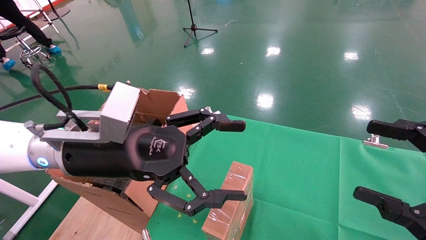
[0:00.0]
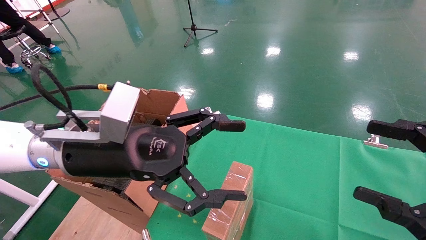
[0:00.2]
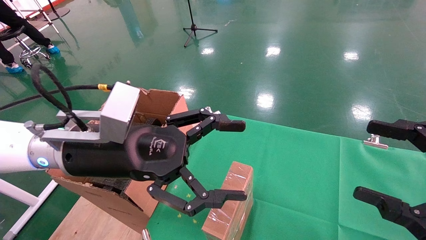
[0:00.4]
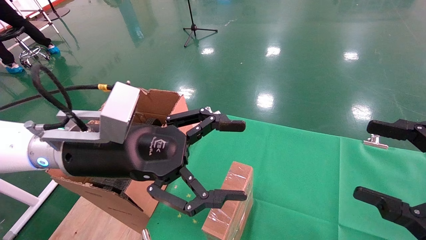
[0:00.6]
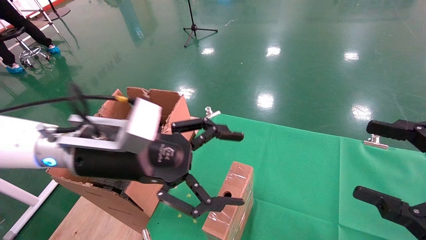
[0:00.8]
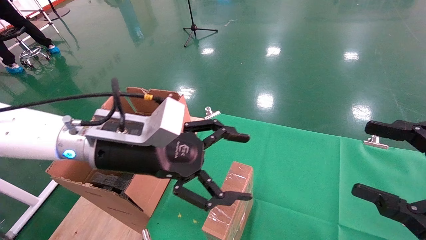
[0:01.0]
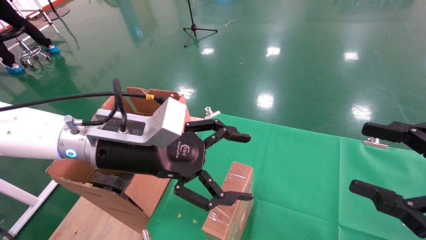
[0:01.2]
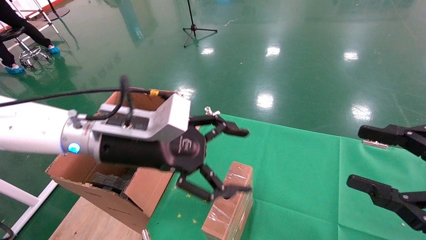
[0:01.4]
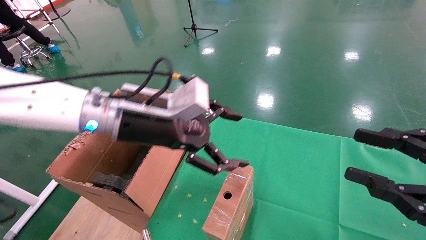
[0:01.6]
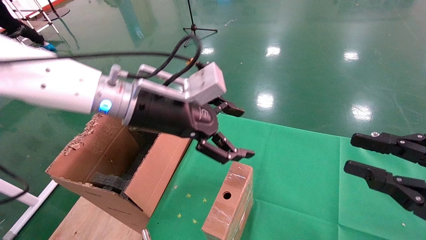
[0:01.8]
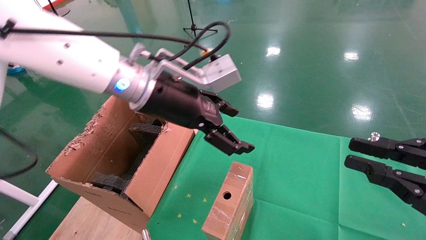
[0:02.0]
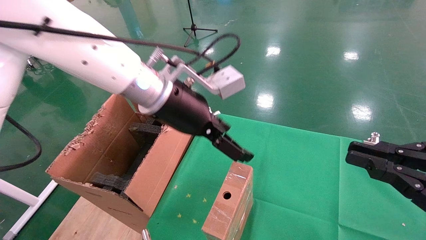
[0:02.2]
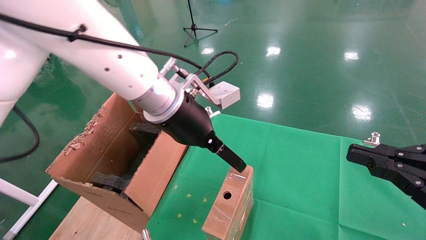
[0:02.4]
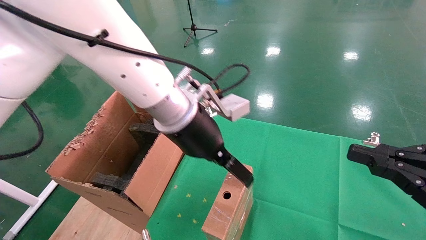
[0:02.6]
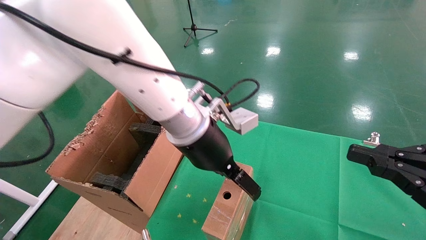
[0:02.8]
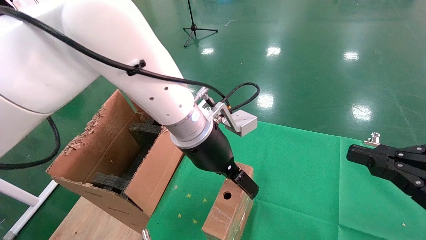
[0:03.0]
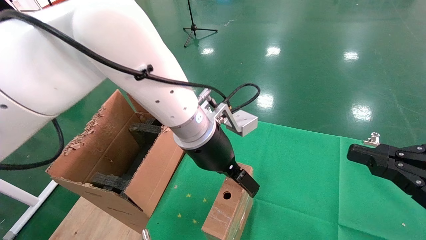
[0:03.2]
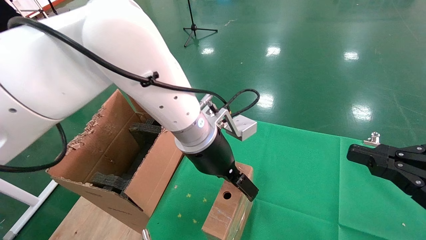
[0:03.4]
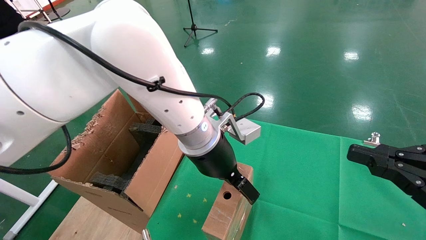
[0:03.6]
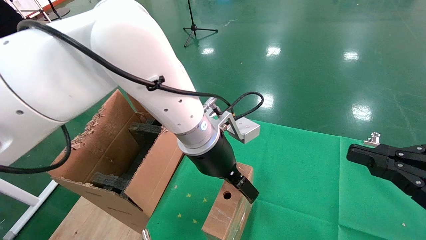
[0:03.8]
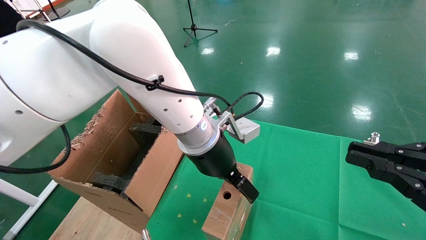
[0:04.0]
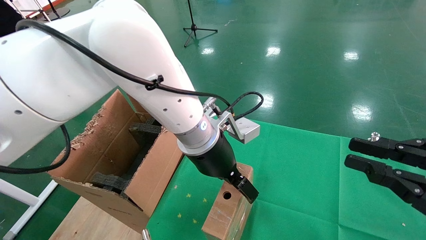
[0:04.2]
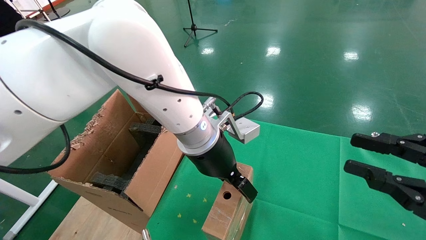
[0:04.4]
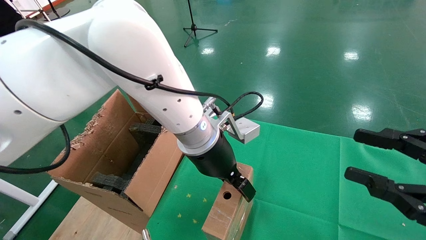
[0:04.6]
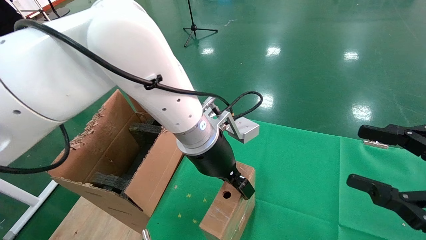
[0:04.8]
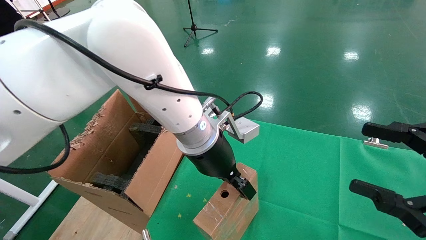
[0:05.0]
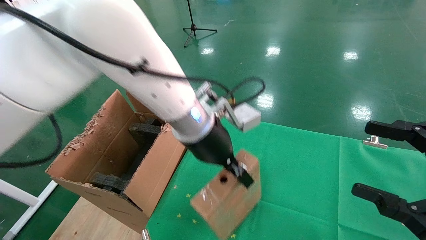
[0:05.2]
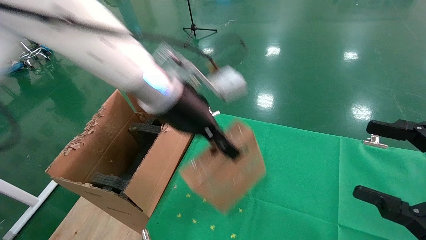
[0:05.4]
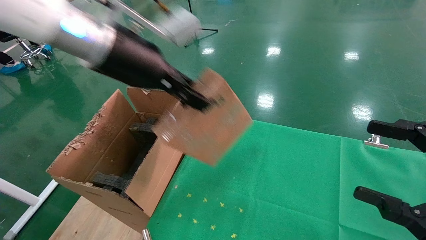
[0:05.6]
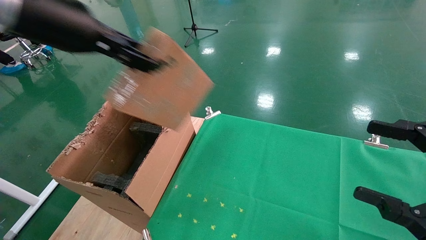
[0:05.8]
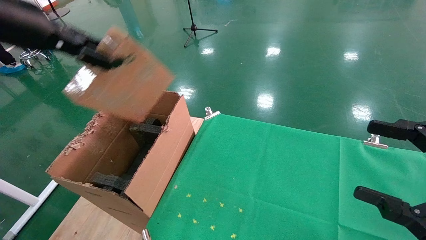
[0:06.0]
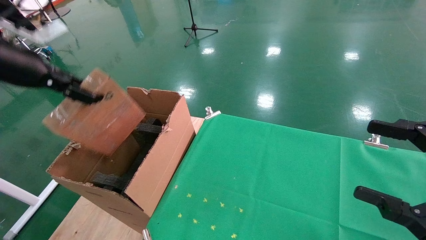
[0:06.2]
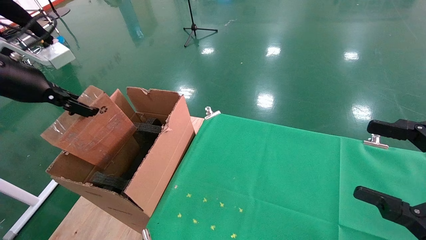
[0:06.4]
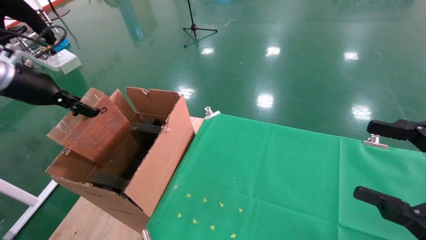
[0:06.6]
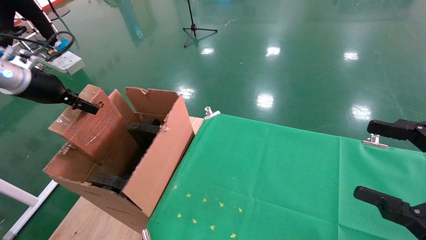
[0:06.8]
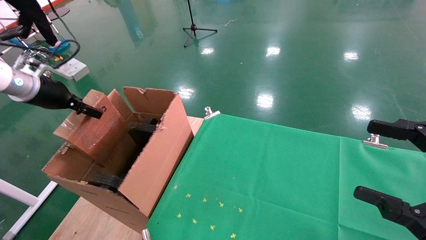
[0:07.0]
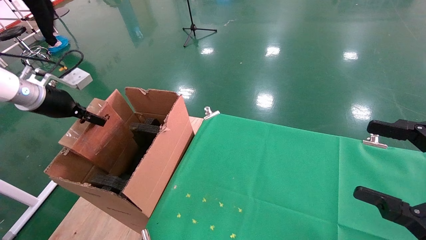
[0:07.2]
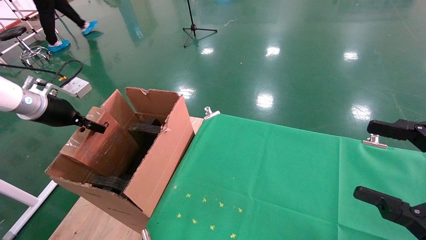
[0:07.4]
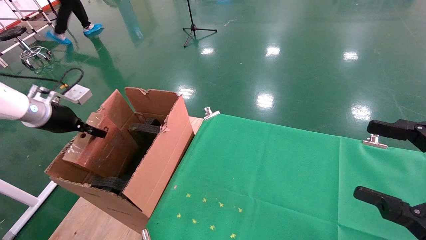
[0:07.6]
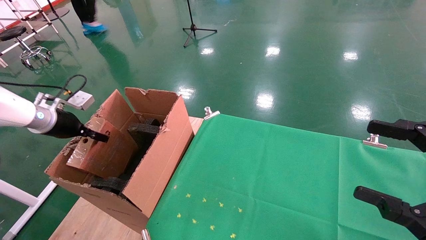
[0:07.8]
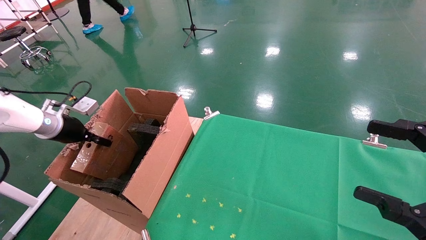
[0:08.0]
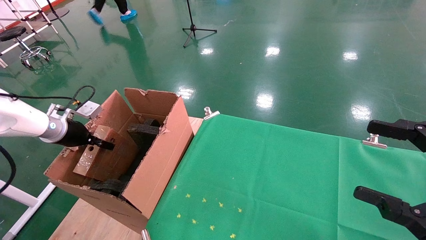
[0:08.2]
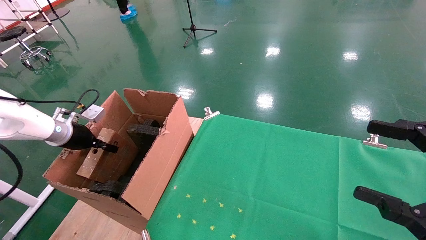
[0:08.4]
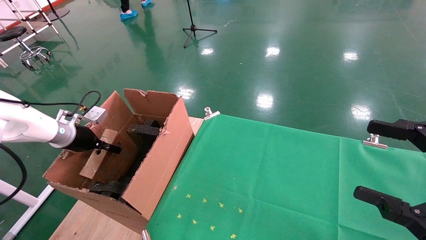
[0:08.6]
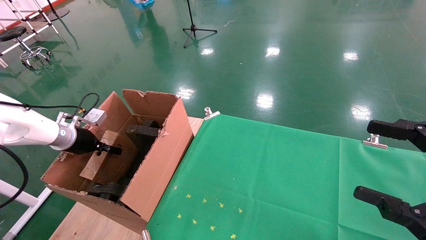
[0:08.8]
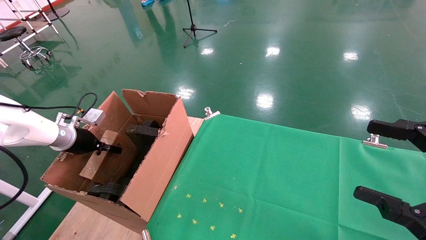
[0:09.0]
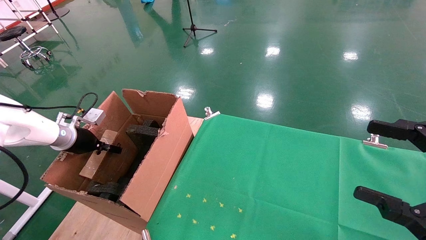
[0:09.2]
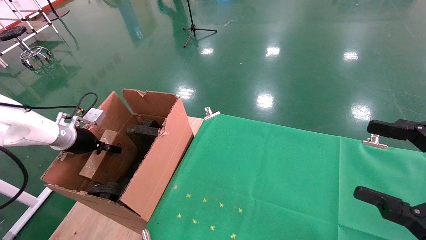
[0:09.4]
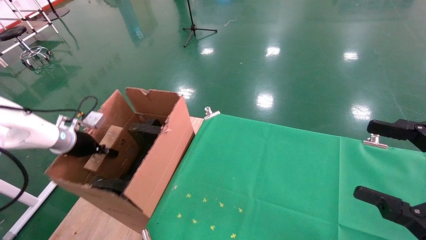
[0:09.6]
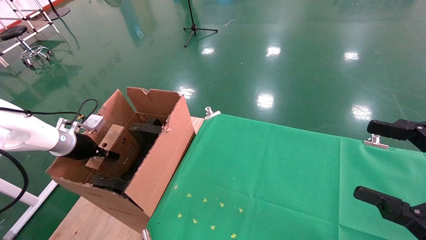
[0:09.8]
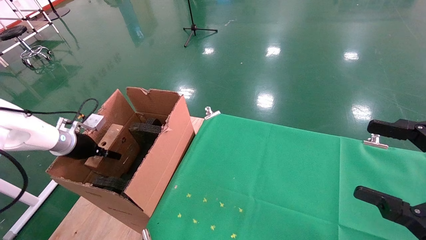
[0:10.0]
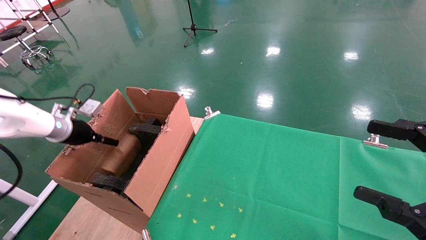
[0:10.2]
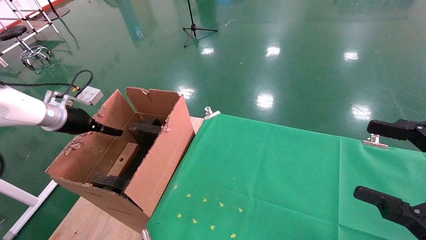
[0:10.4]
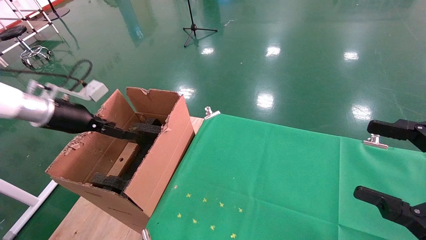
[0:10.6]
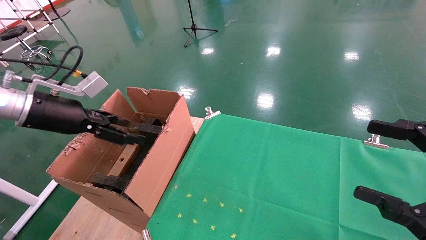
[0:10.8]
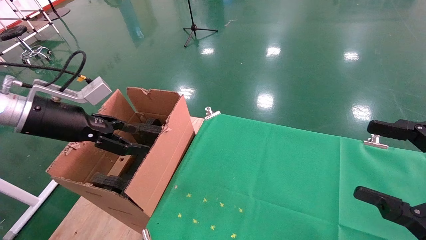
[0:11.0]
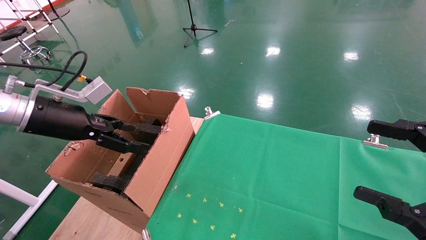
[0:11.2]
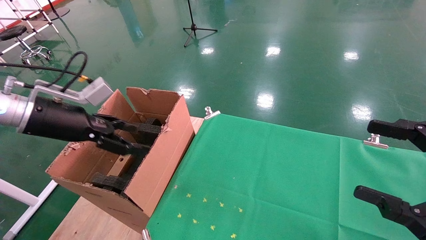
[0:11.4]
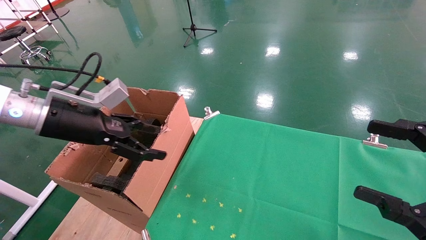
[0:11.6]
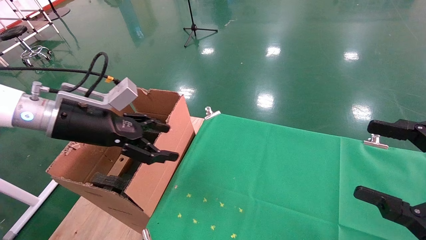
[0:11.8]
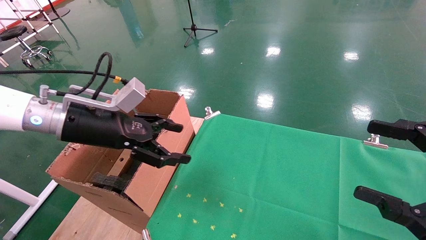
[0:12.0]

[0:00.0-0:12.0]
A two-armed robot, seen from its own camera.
Task of the whole recording: using a robotic arm to pick up a cardboard box and palace it the carton.
Step, 0:01.0 to 0:04.8: Pick up the mouse and the power cord paper box.
Step, 0:05.0 to 0:10.8: Place the mouse and the power cord paper box into the container.
0:00.0 to 0:01.6: The right gripper closes up, while the left gripper heads forward, covering some 5 cm.
0:01.6 to 0:03.0: The left gripper goes some 10 cm to the right. Meanwhile the right gripper closes its fingers.
0:03.0 to 0:04.4: The grippers stay close to where they were, moving slightly.
0:04.4 to 0:06.0: The right gripper opens up. Meanwhile the left gripper heads to the left and upward, covering some 35 cm, and closes its fingers.
0:06.0 to 0:07.6: The left gripper moves downward, to the left and forward, about 25 cm.
0:07.6 to 0:09.0: The left gripper moves downward, some 10 cm.
0:09.0 to 0:10.4: The left gripper travels upward by approximately 10 cm, and opens its fingers.
0:10.4 to 0:12.0: The left gripper heads to the right and backward, covering about 20 cm.

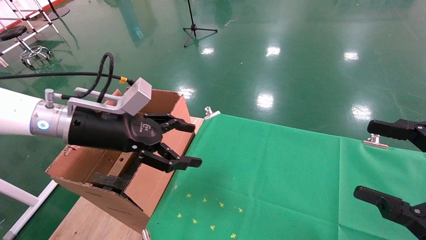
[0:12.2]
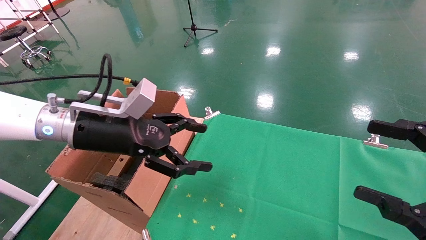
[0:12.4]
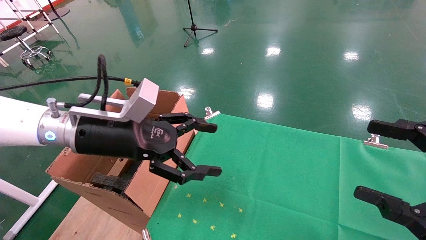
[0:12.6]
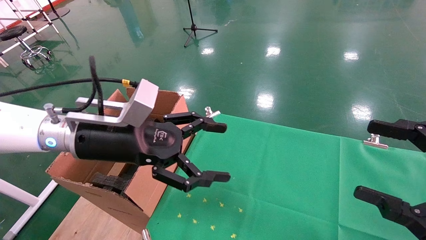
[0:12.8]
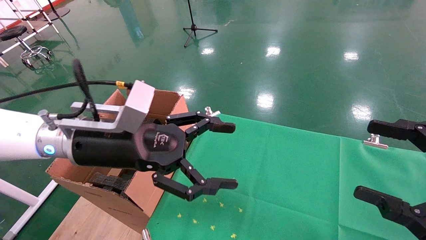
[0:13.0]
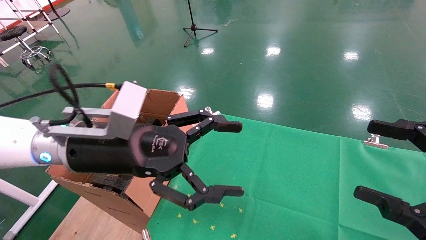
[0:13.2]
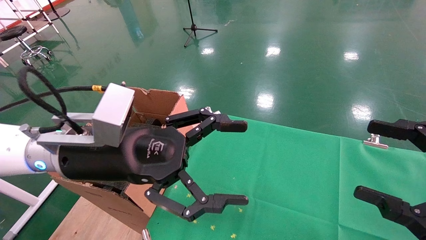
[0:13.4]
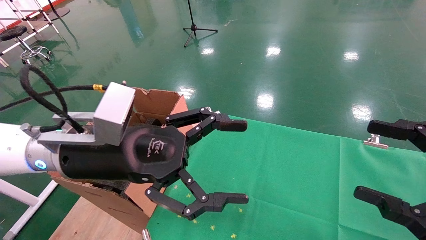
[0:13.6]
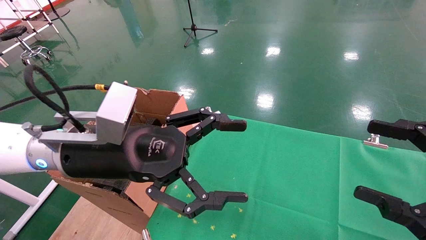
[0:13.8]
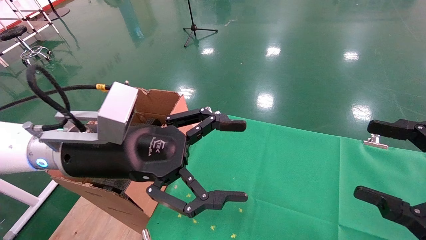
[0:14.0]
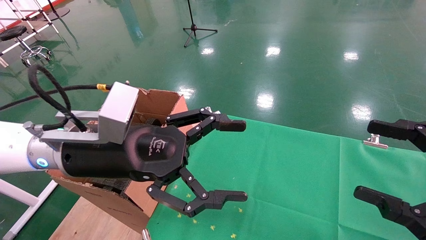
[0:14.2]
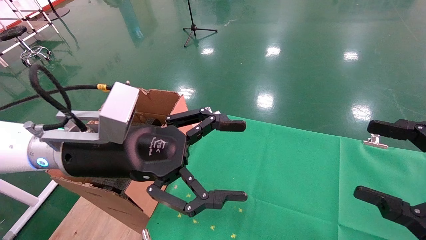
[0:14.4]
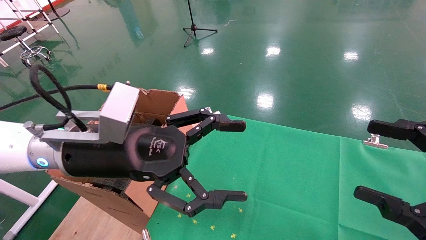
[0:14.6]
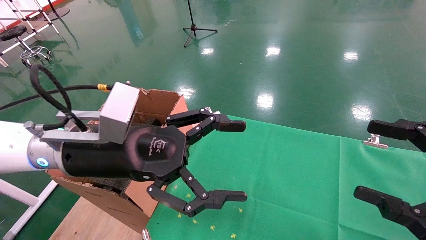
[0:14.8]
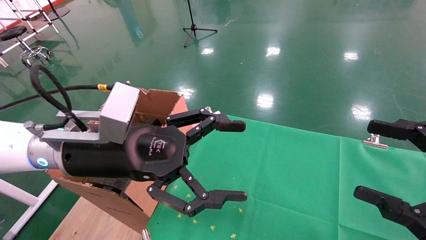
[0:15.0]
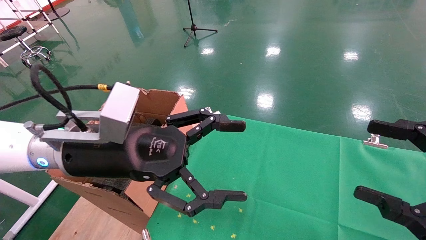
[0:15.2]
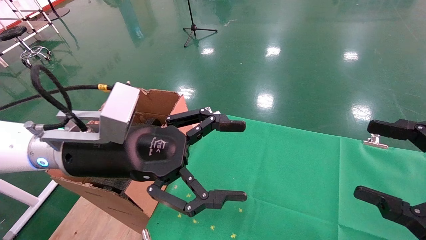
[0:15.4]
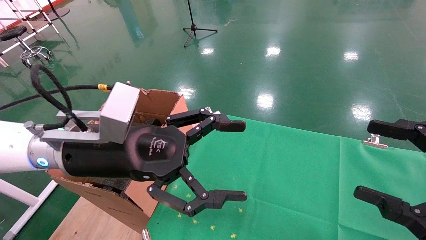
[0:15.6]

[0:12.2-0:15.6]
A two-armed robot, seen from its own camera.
Task of the whole recording: using a robotic arm to pick up a cardboard box and palace it the carton.
0:12.2 to 0:13.8: The left gripper goes approximately 10 cm to the right and backward.
0:13.8 to 0:15.6: Both grippers stay put.
